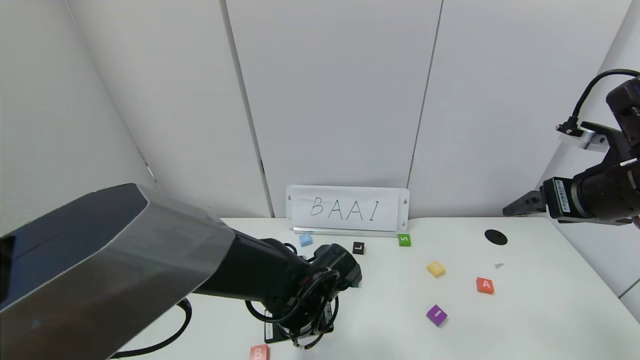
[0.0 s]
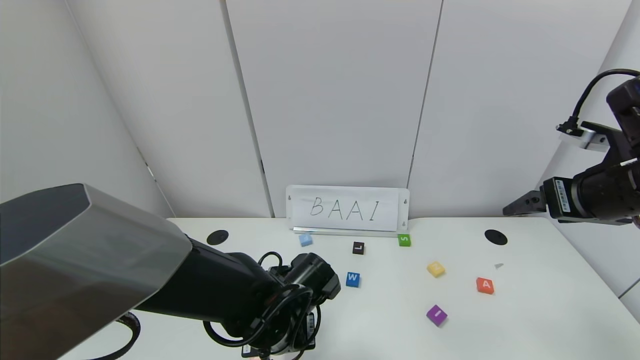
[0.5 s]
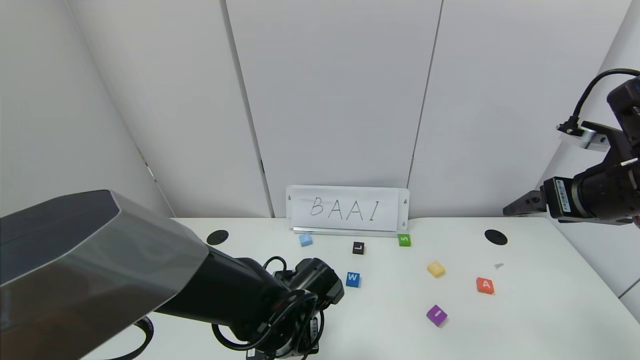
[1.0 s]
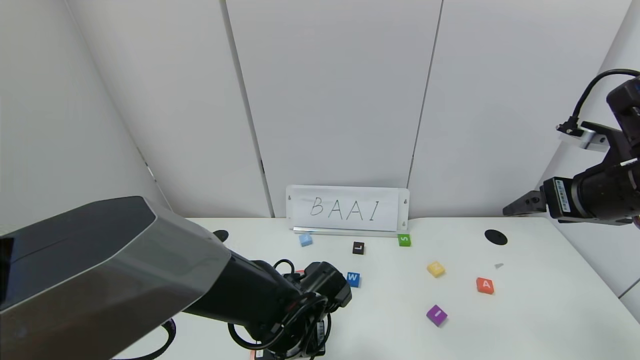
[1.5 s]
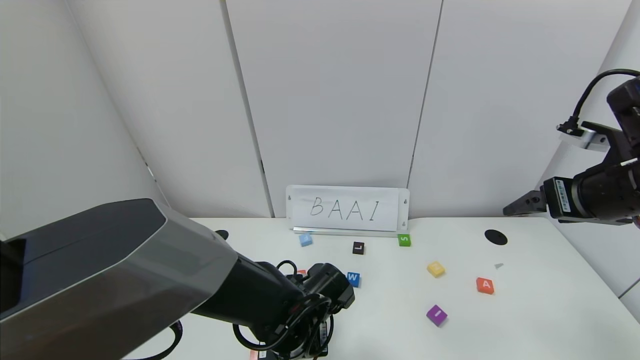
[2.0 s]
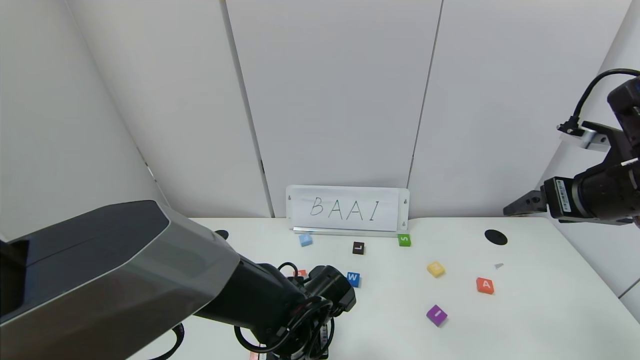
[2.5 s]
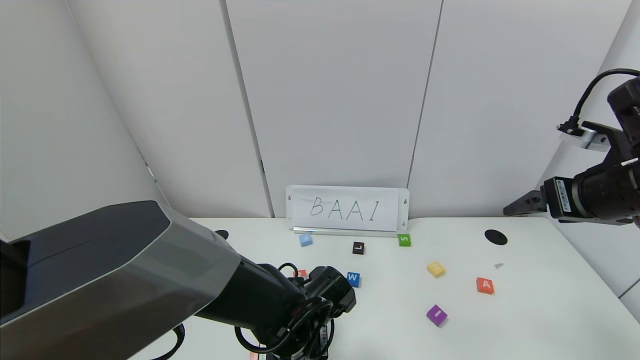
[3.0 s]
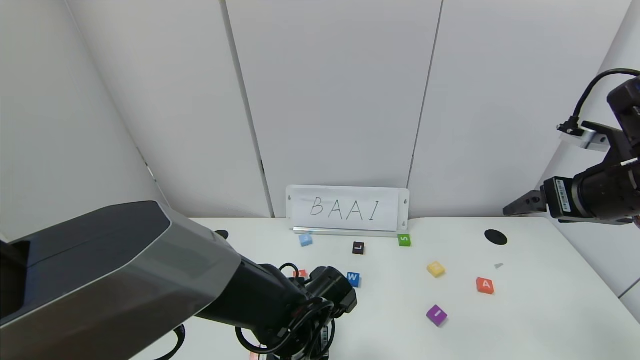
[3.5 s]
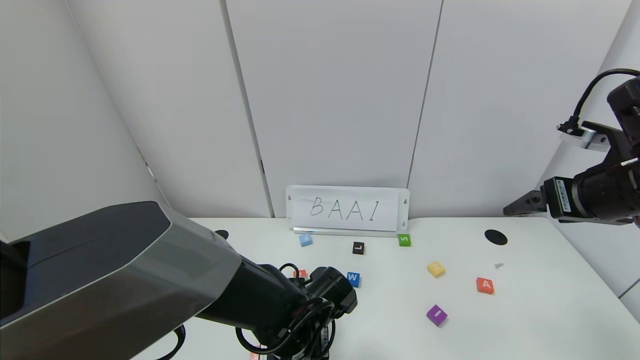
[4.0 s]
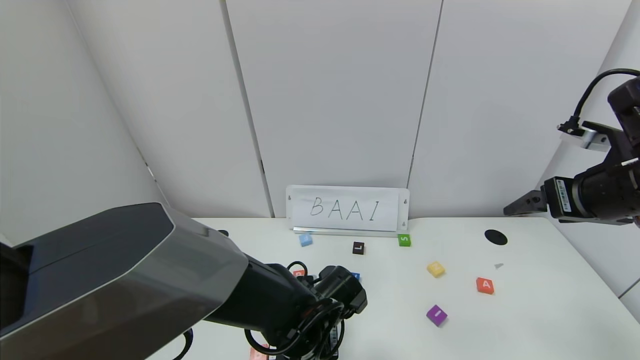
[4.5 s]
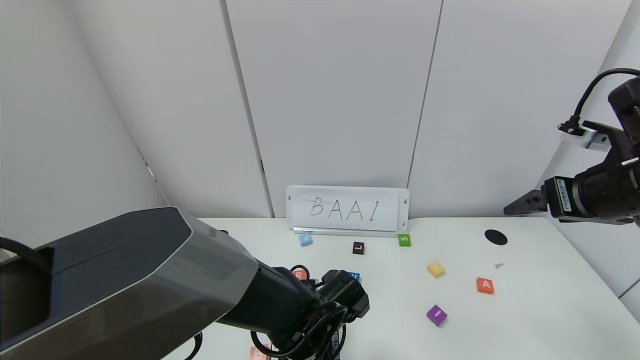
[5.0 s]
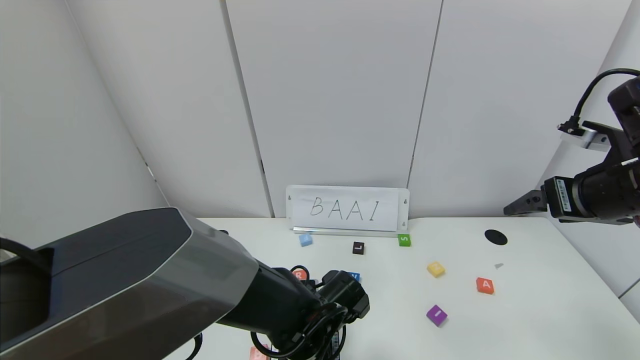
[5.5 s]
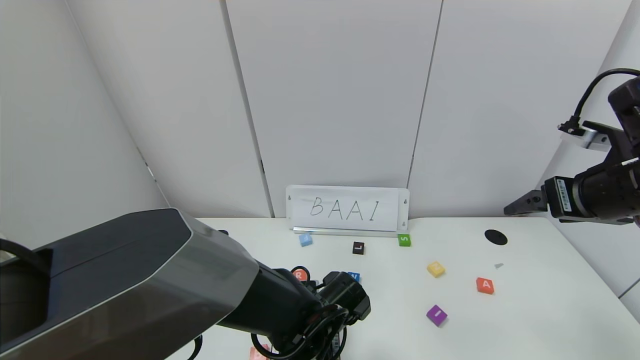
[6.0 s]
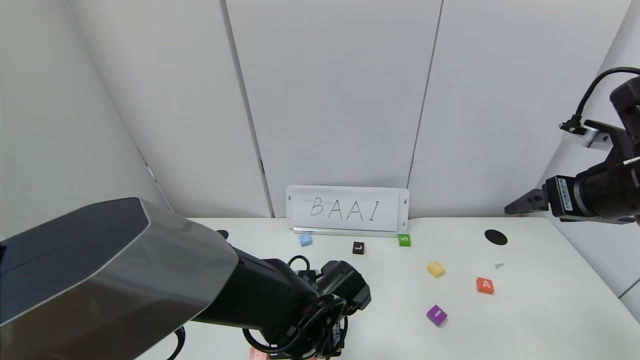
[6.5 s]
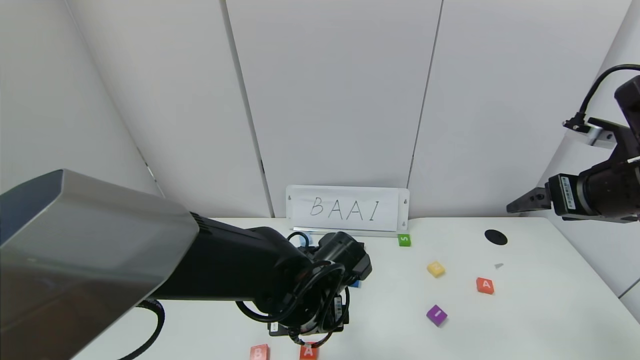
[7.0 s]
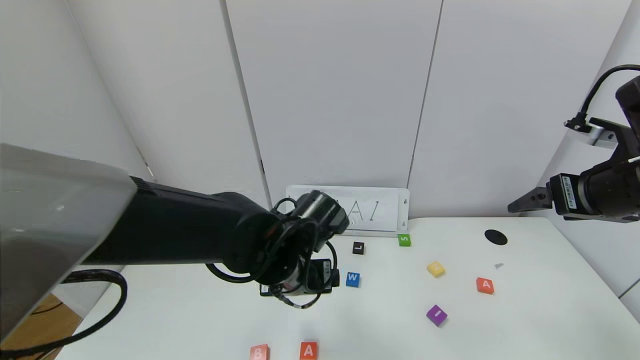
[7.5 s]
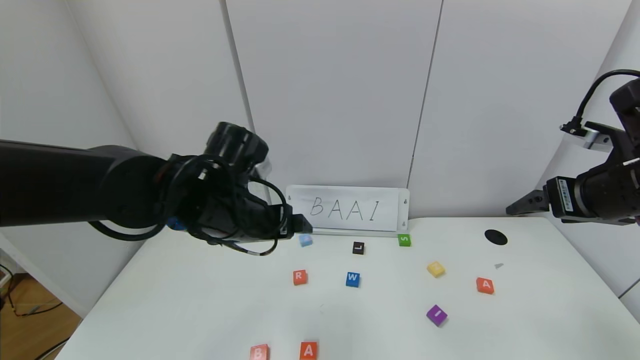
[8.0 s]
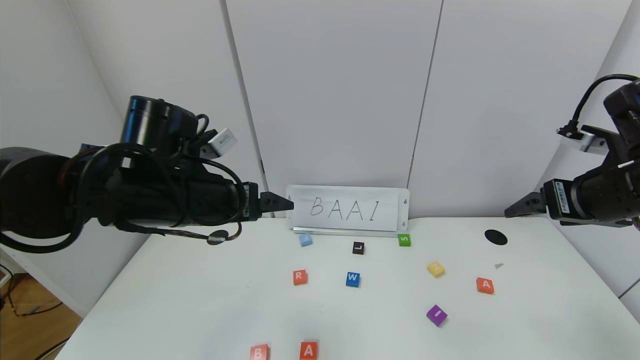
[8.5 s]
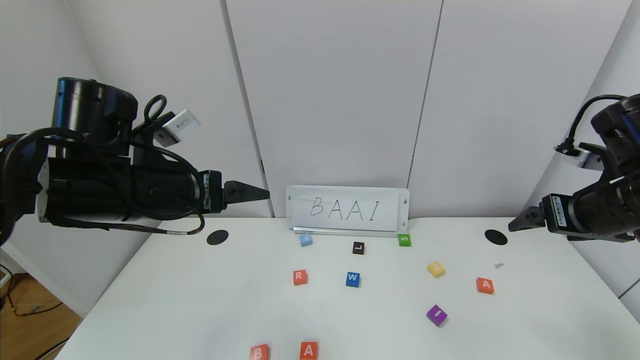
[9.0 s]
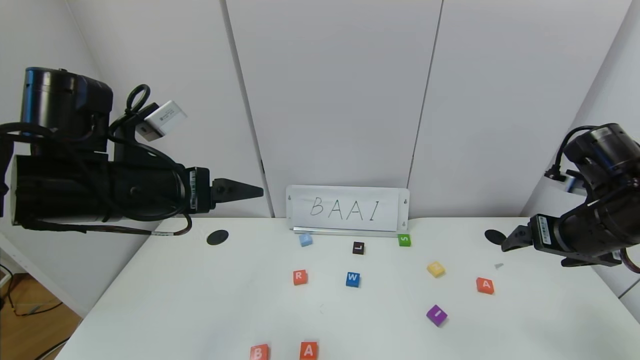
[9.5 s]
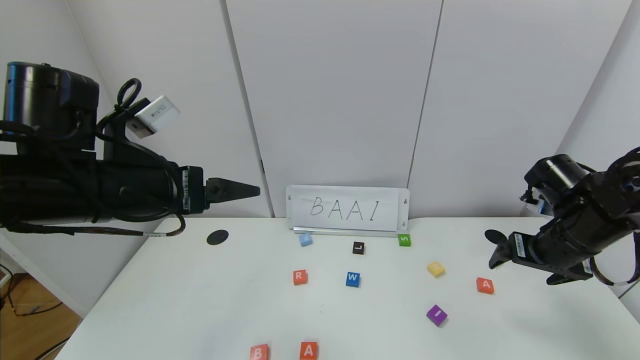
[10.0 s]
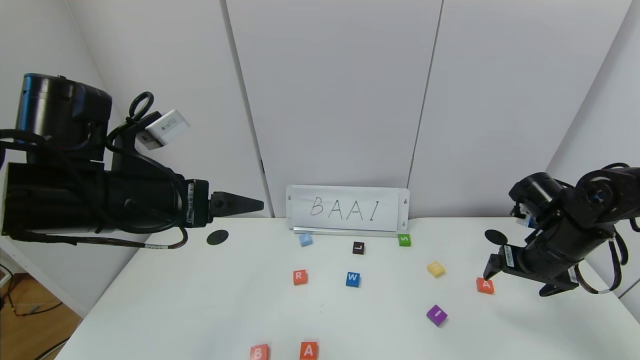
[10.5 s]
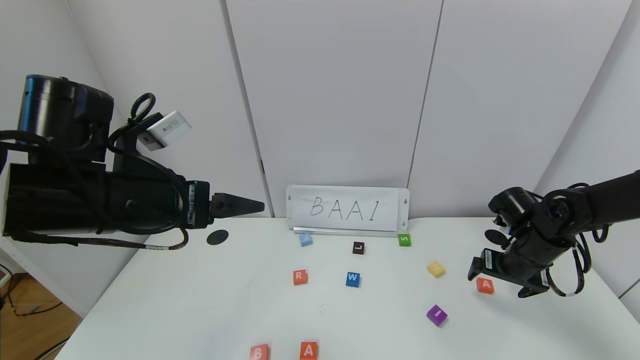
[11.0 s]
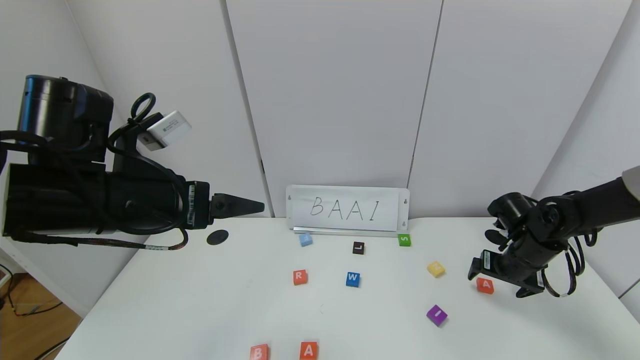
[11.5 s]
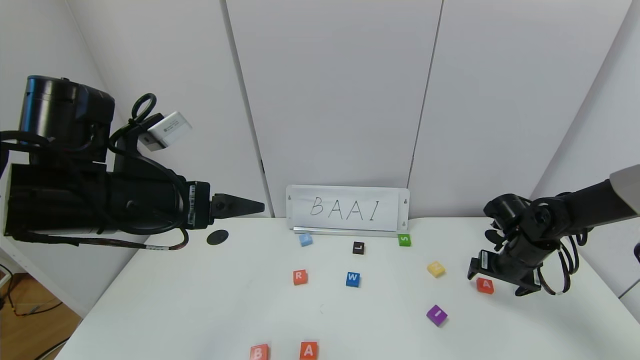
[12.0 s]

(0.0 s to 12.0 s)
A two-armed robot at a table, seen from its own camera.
Task of the whole recording: use the gripper to find blocks with the letters b, a, a, and i on the table and arrange them into BAAI, then find r and N and turn the arranged baai into brian.
Step, 0.0 s - 5.5 s: Place the first block A in the second location.
0.0 s - 2.0 s: The grippers stay close to where they were, moving slightly.
2.0 s - 4.0 s: Both grippers stay about where they are.
4.0 s - 6.0 s: The left gripper opens its fingers.
6.0 s - 8.0 s: The left gripper heads upward and to the left, covering some 20 cm.
8.0 s - 10.0 s: The right gripper shifts approximately 10 cm downward, while the left gripper shifts some 10 cm to the left, upward and backward.
10.0 s - 12.0 s: The right gripper travels downward and forward by approximately 15 cm.

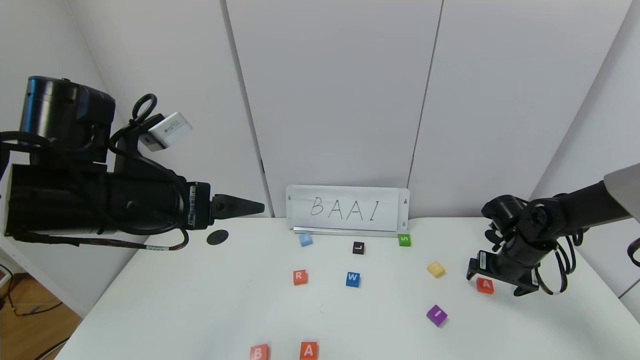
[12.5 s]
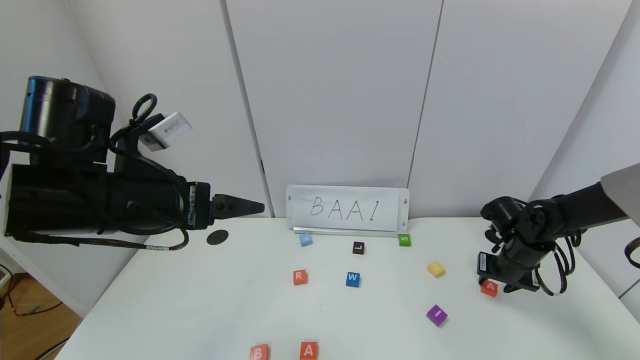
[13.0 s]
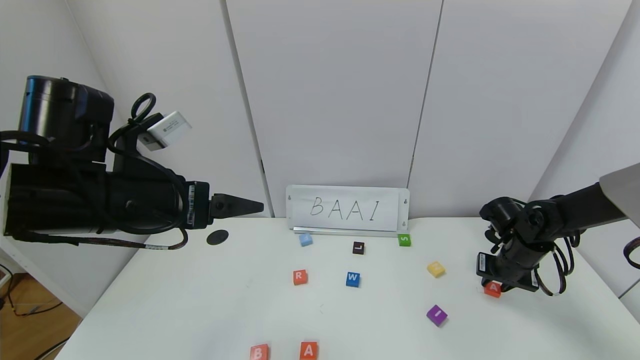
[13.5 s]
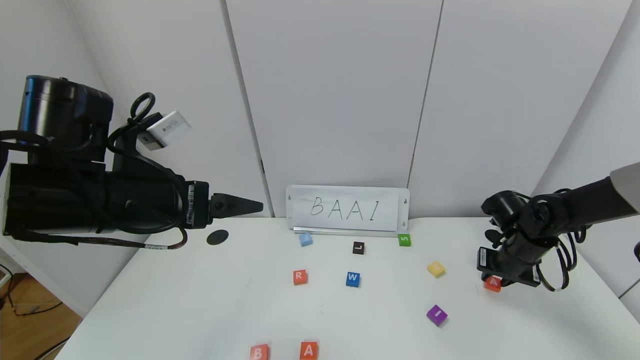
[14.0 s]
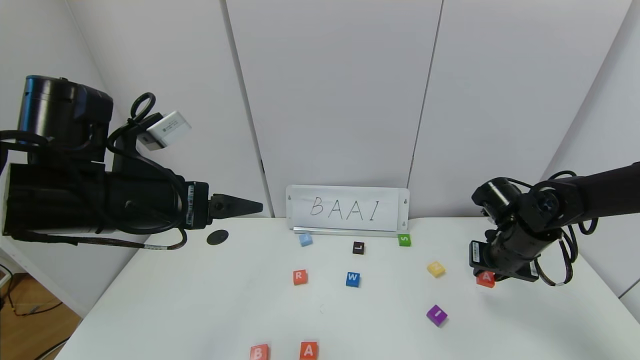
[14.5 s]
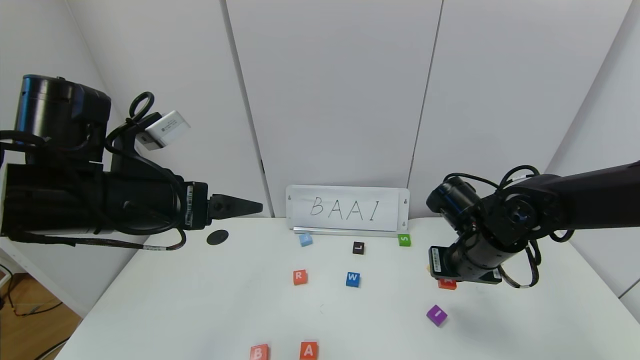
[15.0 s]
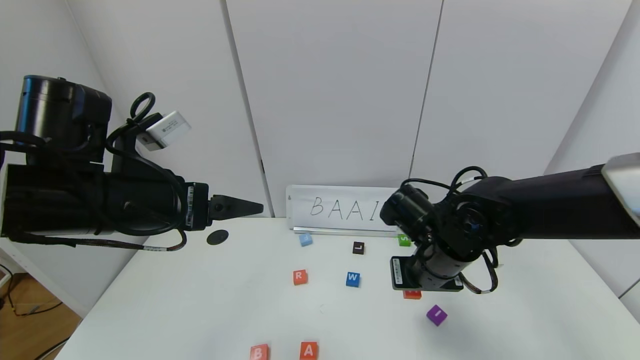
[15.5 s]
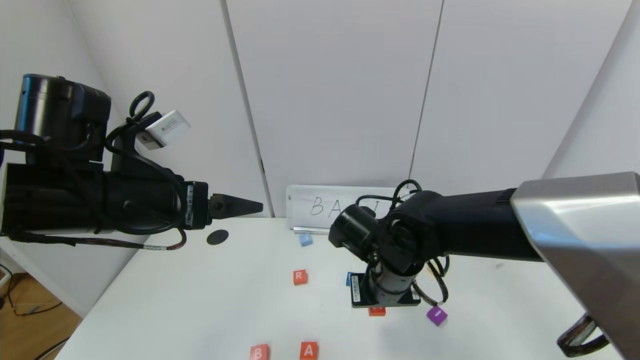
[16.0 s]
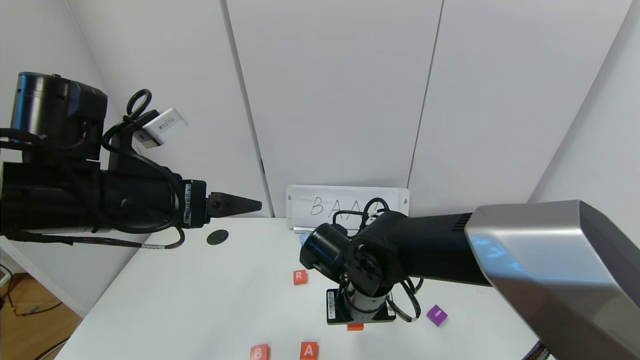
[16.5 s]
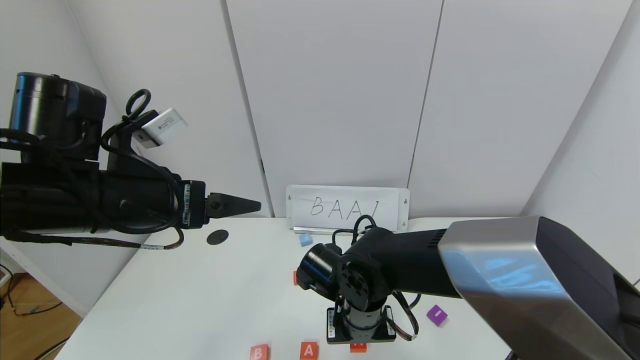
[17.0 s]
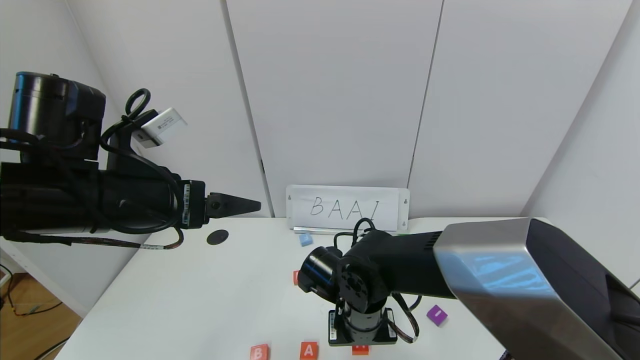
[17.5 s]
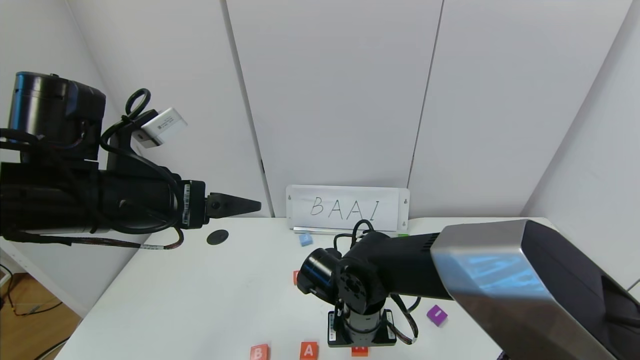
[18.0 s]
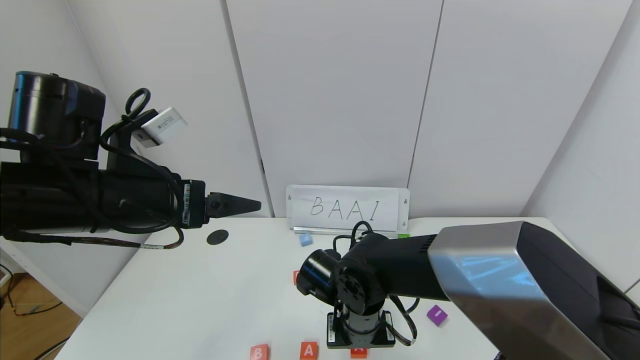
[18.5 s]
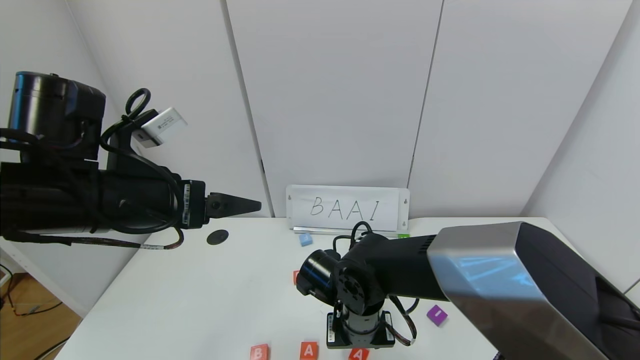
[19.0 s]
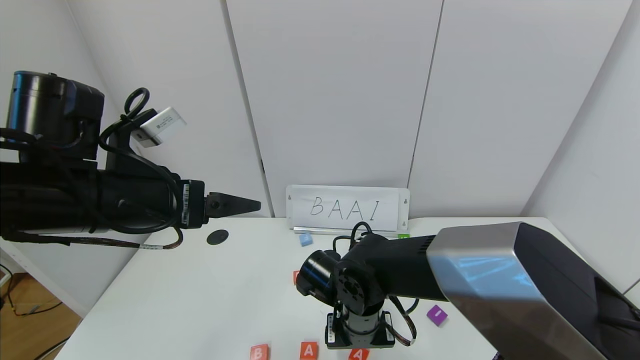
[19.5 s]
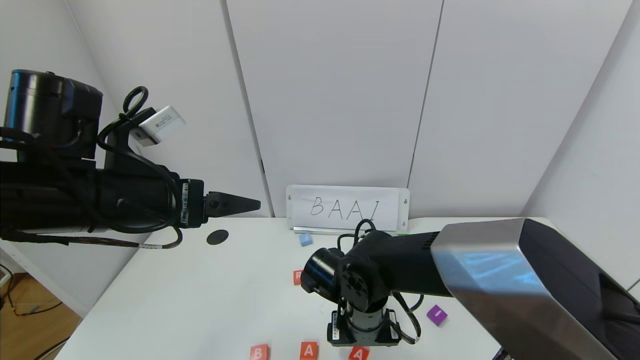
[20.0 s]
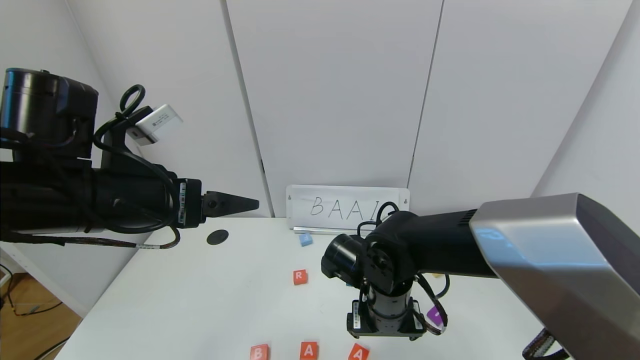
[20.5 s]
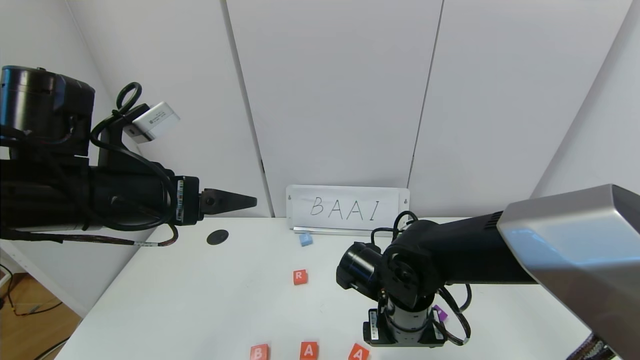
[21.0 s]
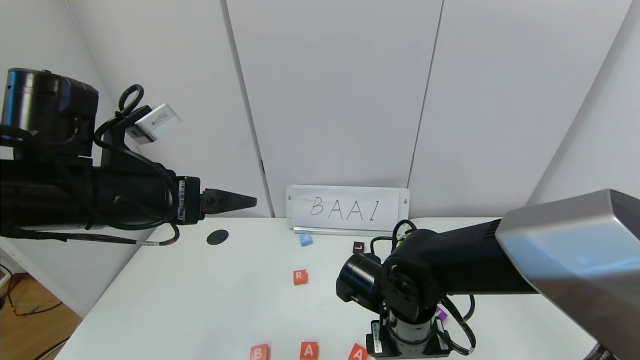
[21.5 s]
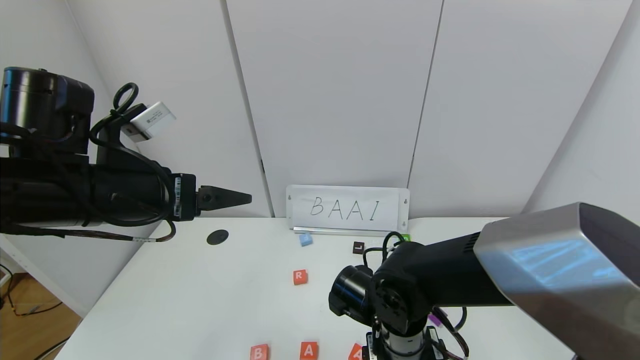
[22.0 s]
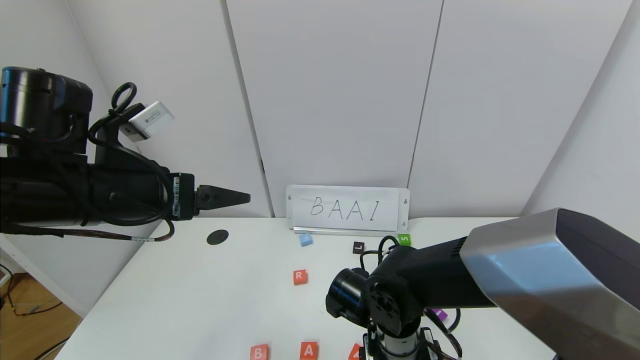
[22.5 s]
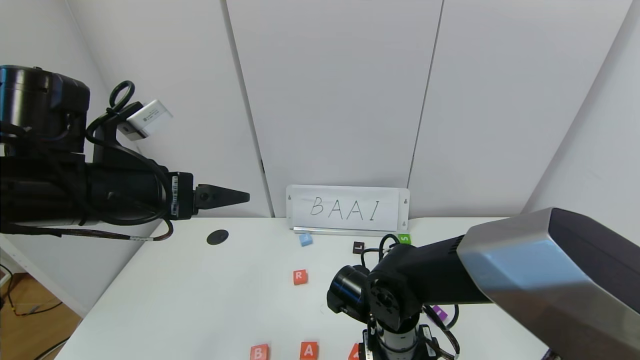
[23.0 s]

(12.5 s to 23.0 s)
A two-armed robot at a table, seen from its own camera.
Task of the whole recording: use the gripper to find blocks with the letters b, a, a, and i on the table and arrange them into BAAI, then find r and N and turn the arranged baai into brian.
Step, 12.5 s - 19.0 s: Place the second block A in the third location.
12.5 s - 14.5 s: The right gripper is displaced upward by roughly 5 cm, and closes up.
14.5 s - 16.5 s: The right gripper travels to the left by some 25 cm.
16.5 s - 19.0 s: The right gripper opens.
19.0 s - 21.0 s: The right gripper is displaced to the right by approximately 5 cm, and opens its fingers.
21.0 s - 23.0 s: The grippers stay close to where they were, moving slightly.
